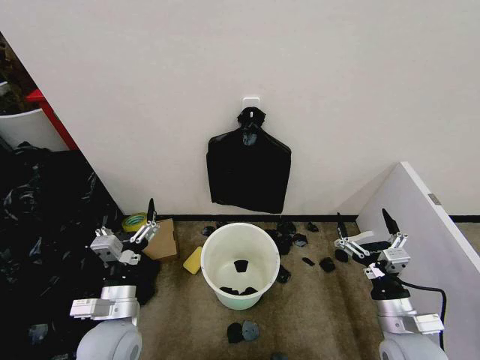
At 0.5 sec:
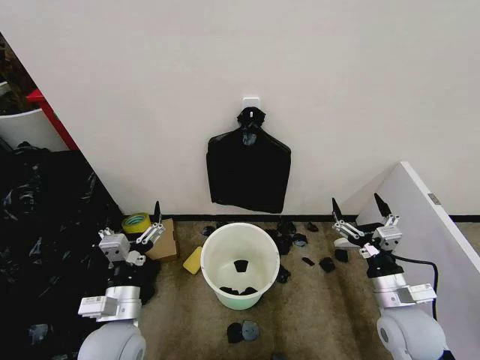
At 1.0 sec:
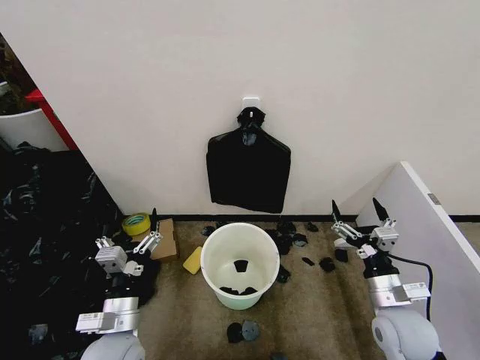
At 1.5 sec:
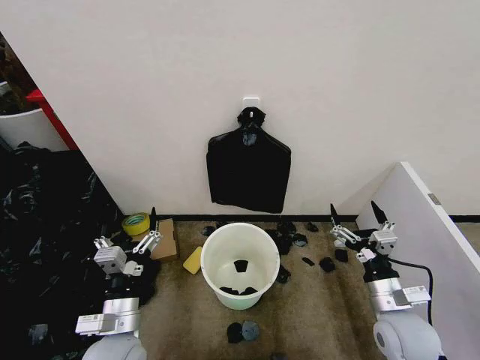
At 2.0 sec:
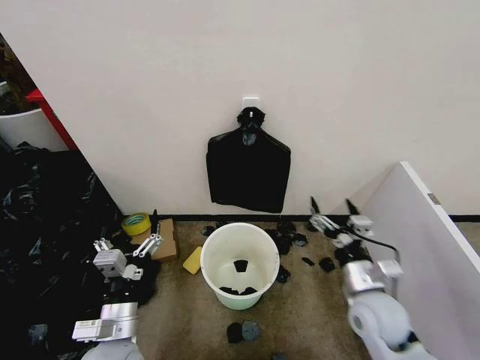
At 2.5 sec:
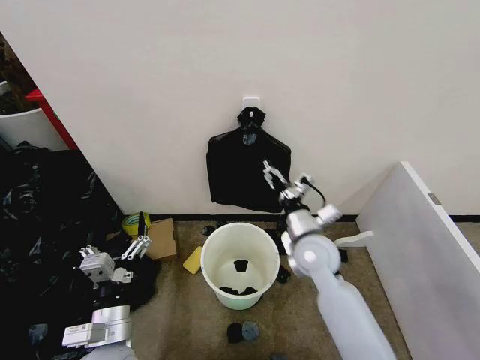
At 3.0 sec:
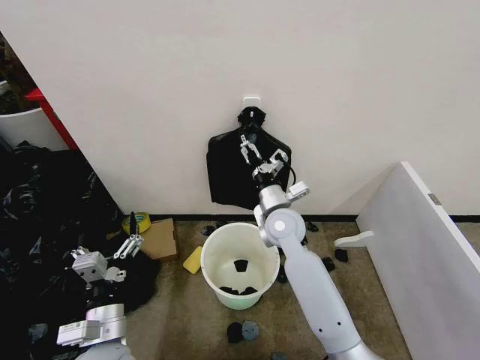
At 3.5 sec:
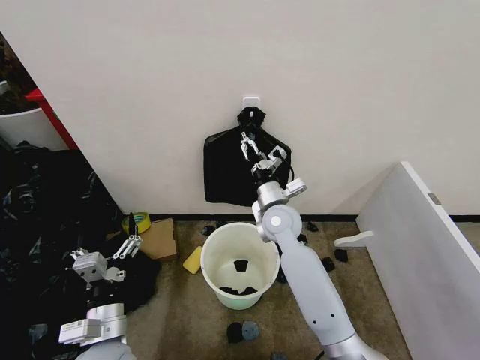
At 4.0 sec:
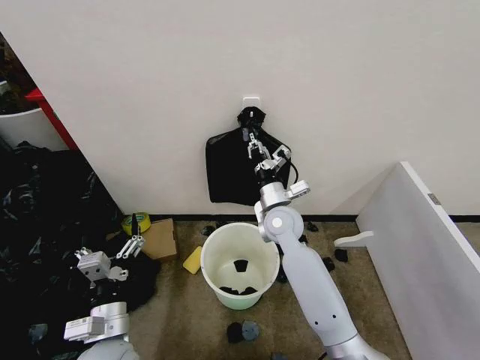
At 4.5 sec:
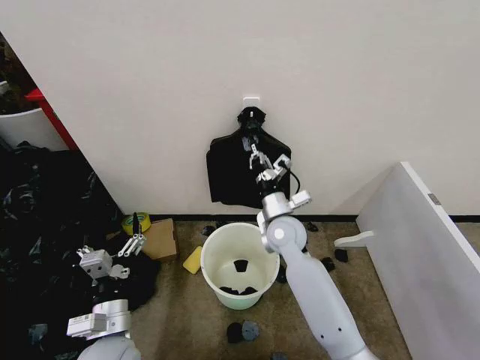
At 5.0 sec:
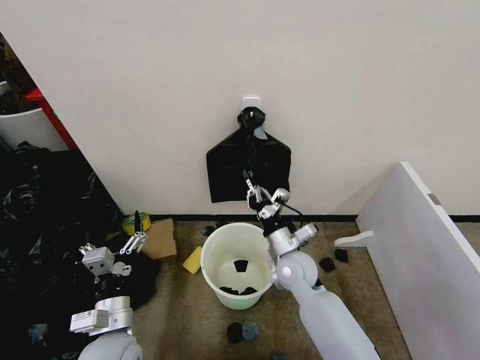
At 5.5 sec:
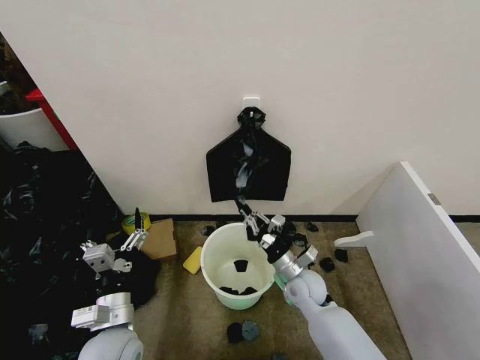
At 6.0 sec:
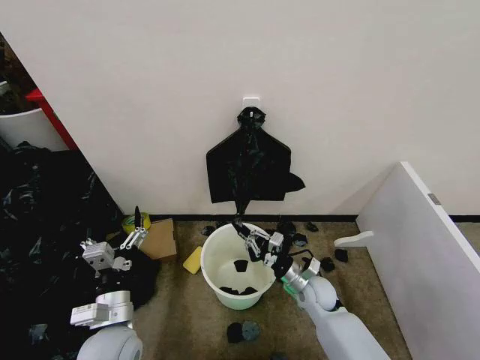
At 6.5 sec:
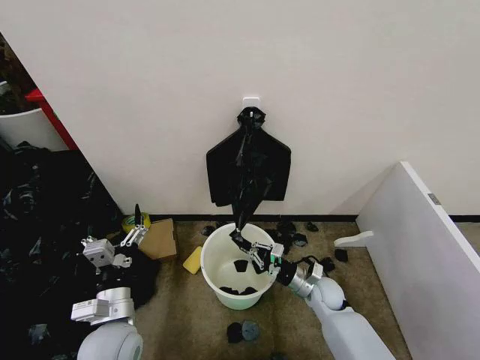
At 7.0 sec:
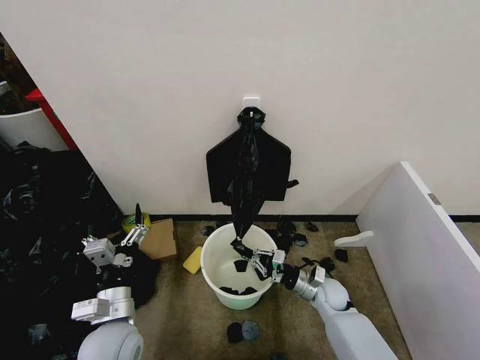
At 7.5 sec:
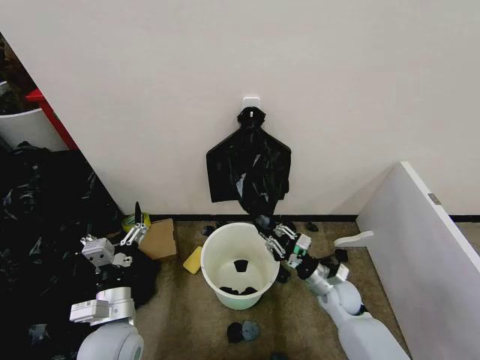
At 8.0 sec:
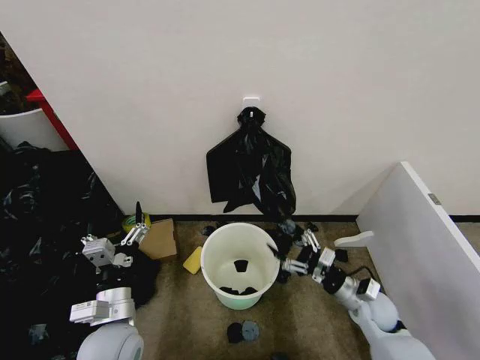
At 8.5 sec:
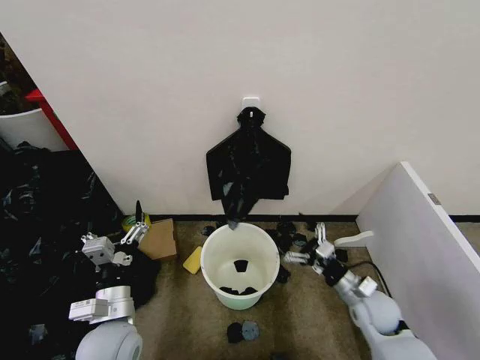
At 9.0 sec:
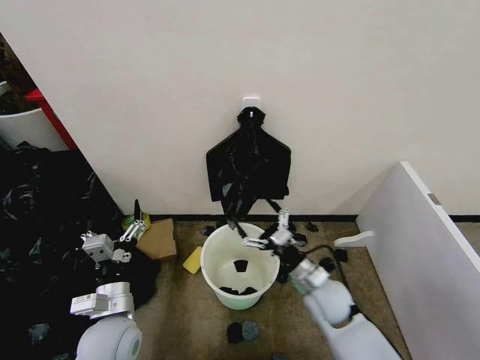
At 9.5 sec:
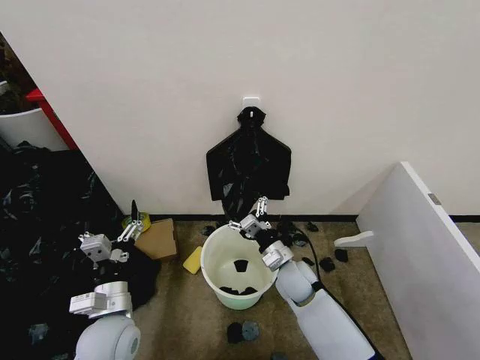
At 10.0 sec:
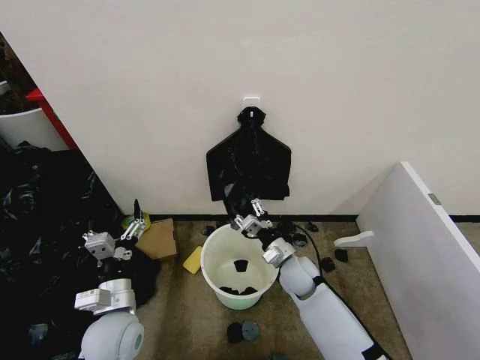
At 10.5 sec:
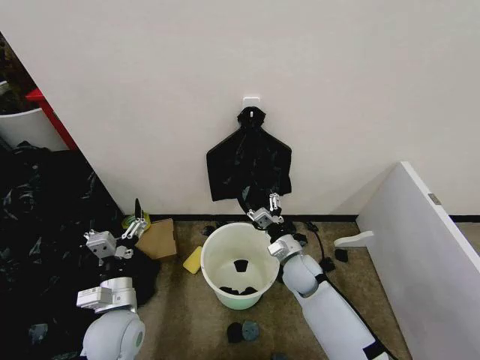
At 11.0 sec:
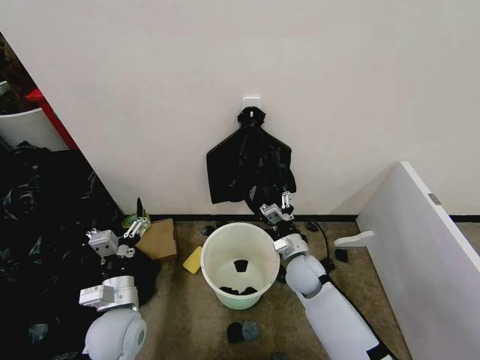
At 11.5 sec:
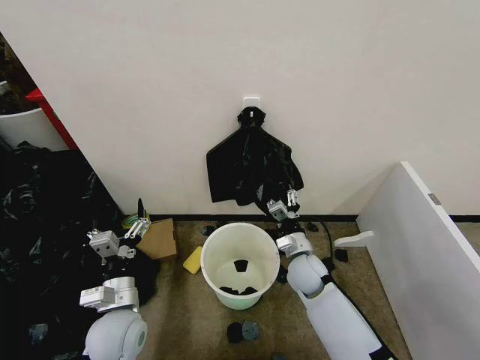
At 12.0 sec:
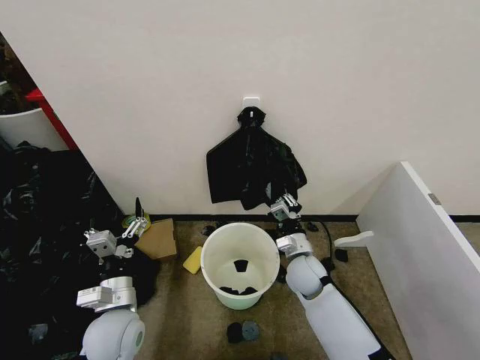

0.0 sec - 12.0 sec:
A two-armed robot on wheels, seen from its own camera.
Task of the whole recording: Place the garbage bag over the trash bin.
2.0 sec - 4.0 sec: The right gripper goes approximately 25 cm forward and to the left, and closes.
4.0 sec - 6.0 sec: The right gripper travels downward, backward and to the right by roughly 20 cm.
6.0 sec - 8.0 sec: The right gripper is displaced to the right by about 10 cm, and opens its fingers.
8.0 sec - 10.0 sec: The right gripper heads to the left and forward, covering some 20 cm.
10.0 sec - 12.0 sec: The right gripper closes up.

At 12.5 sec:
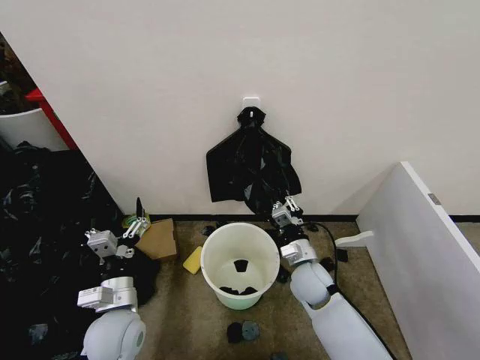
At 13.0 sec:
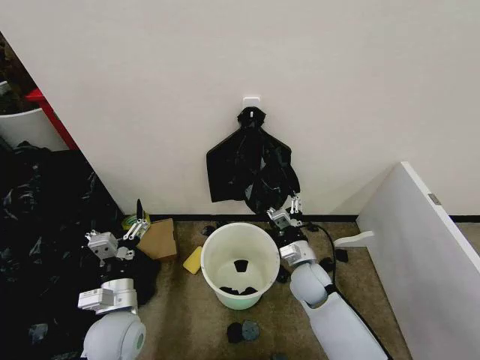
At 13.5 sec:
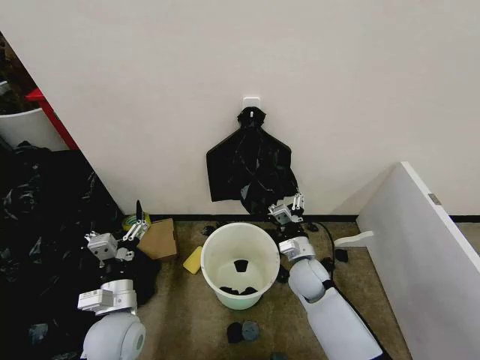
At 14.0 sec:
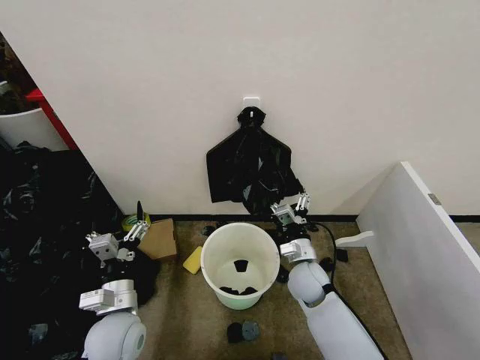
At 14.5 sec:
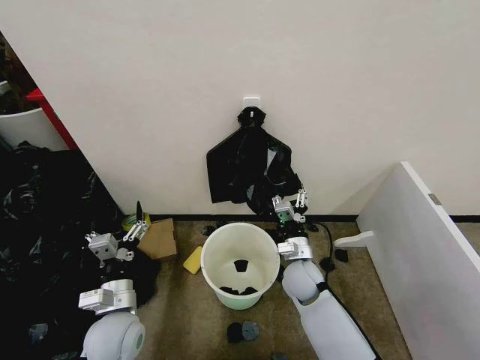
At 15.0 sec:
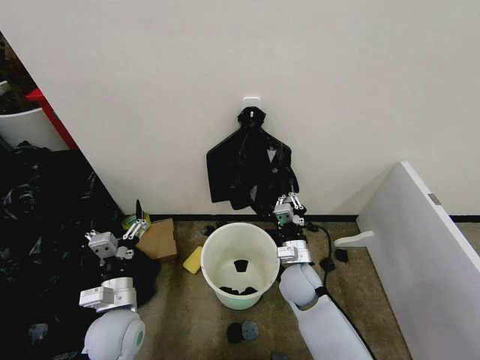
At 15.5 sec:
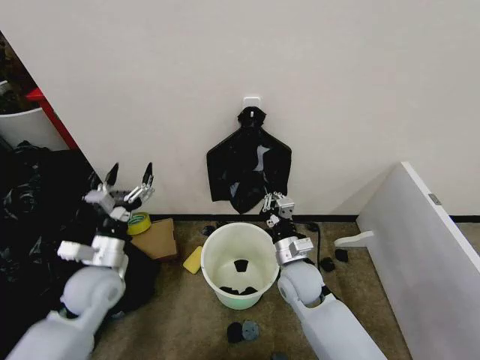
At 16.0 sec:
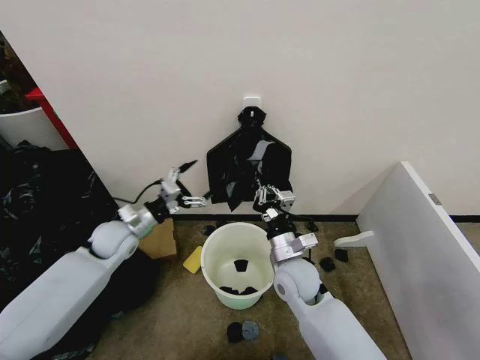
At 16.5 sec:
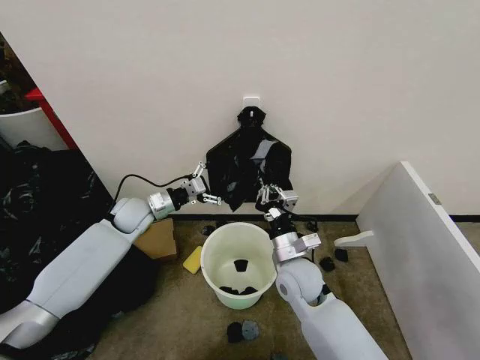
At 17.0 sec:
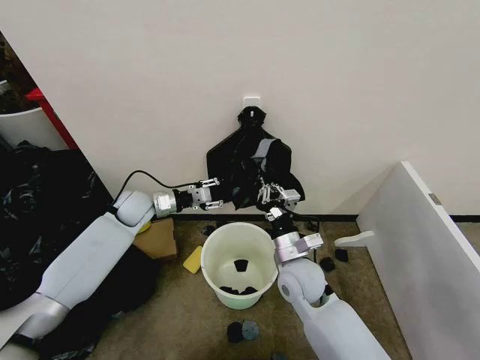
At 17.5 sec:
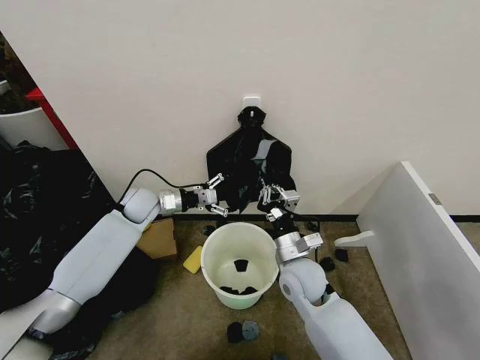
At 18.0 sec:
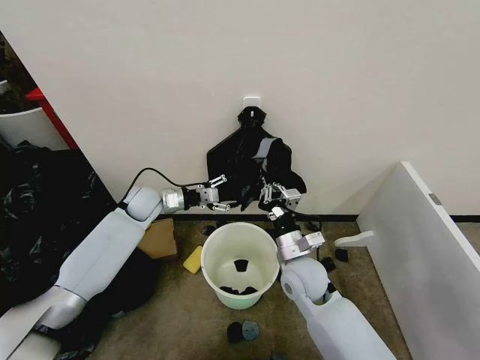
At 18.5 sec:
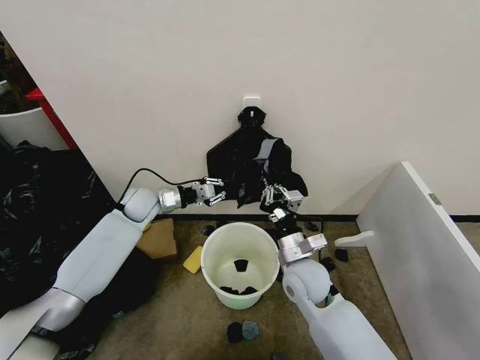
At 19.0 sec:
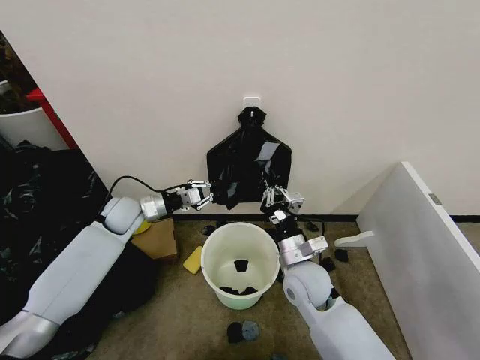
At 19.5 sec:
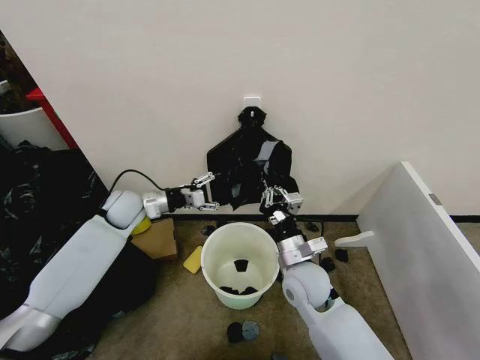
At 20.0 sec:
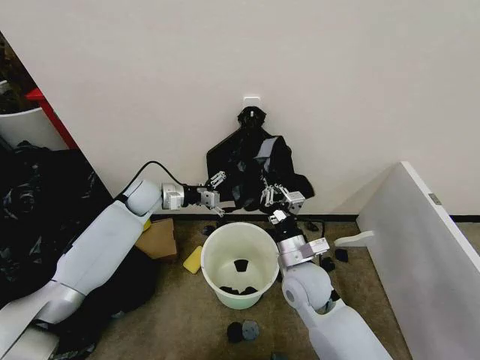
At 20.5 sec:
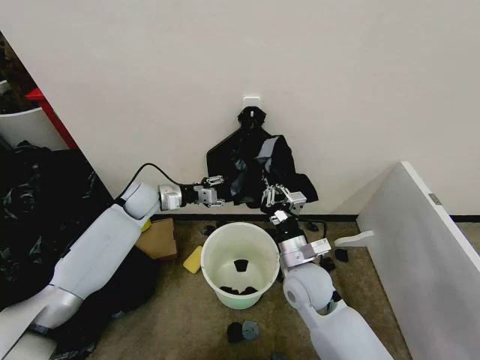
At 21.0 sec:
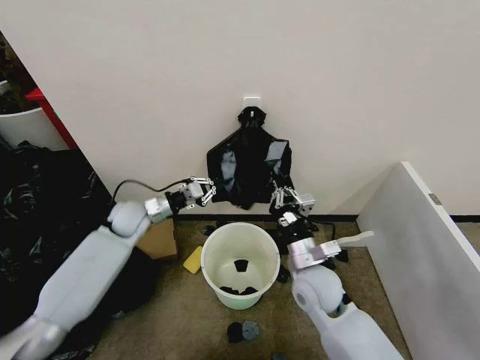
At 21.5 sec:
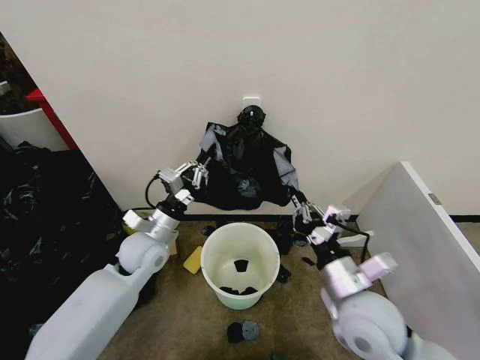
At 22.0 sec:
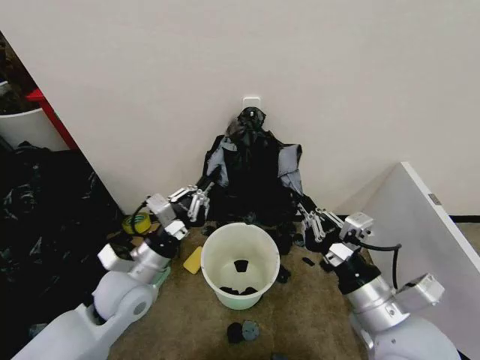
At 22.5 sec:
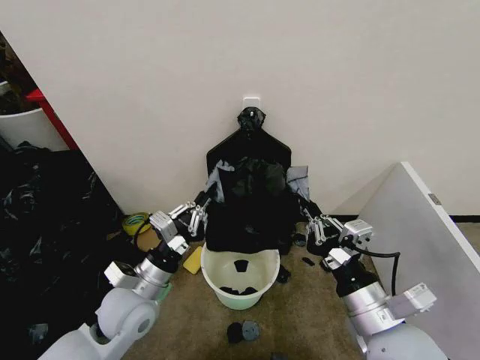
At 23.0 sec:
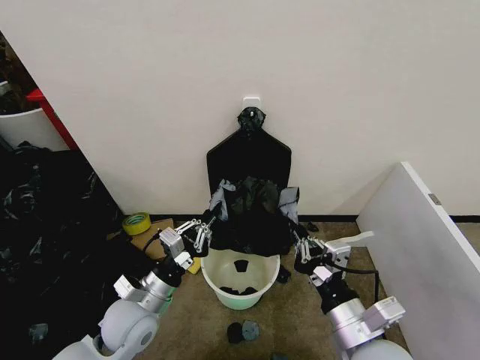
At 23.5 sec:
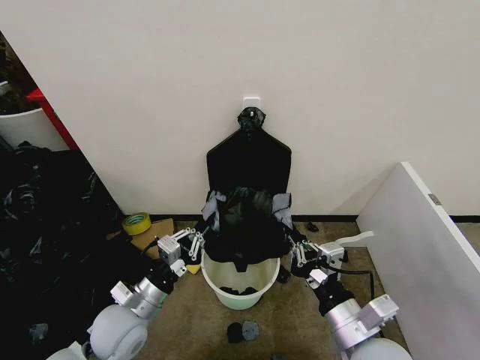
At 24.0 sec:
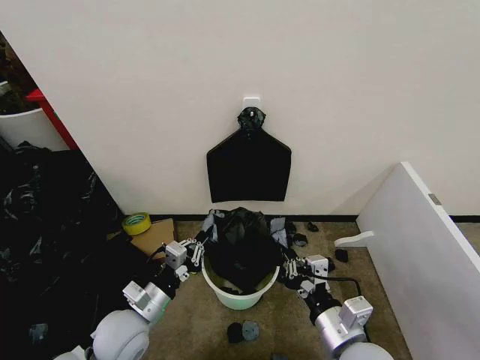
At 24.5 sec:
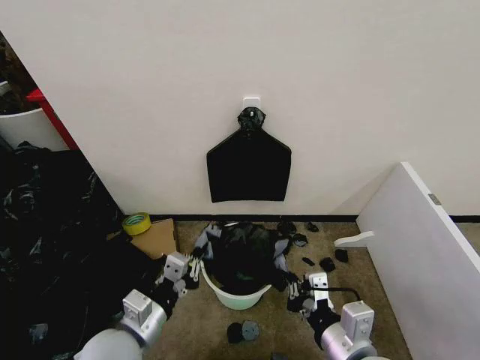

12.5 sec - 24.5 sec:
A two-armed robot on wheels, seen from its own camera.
Task of the whole recording: Place the garbage bag over the trash bin.
12.5 sec - 14.5 sec: The right gripper opens its fingers.
14.5 sec - 16.5 sec: The left gripper shifts about 25 cm forward. The right gripper shifts some 5 cm upward, and closes its fingers.
16.5 sec - 18.5 sec: The left gripper closes up.
18.5 sec - 20.5 sec: The left gripper opens, then closes once more.
20.5 sec - 22.5 sec: The right gripper is displaced backward, upward and to the right by approximately 20 cm. The left gripper heads backward, covering some 25 cm, and closes its fingers.
22.5 sec - 24.5 sec: The right gripper moves approximately 5 cm; the left gripper goes roughly 10 cm backward.

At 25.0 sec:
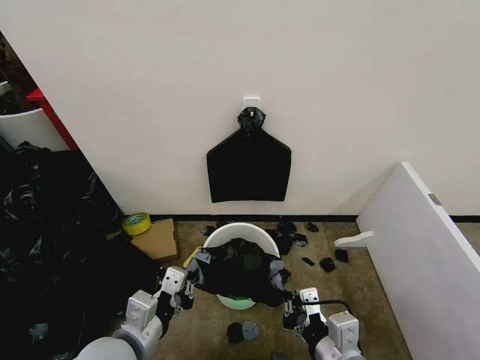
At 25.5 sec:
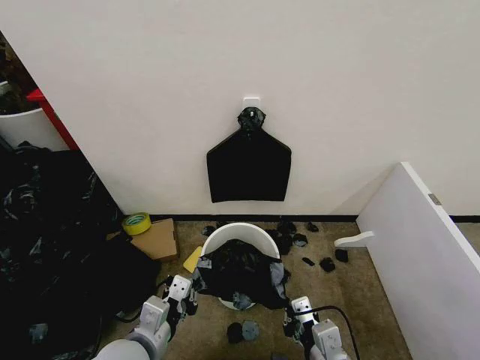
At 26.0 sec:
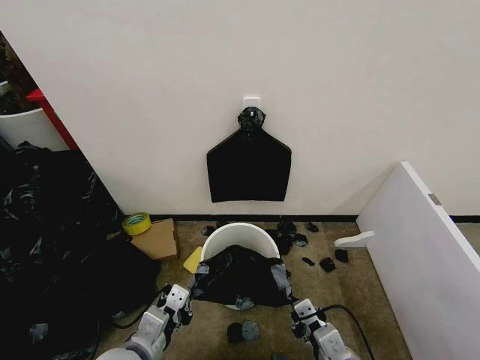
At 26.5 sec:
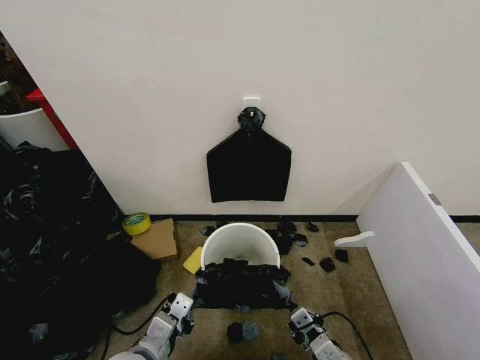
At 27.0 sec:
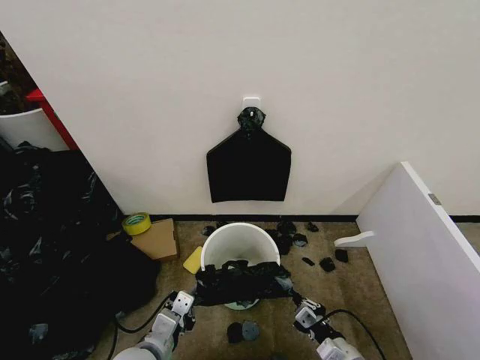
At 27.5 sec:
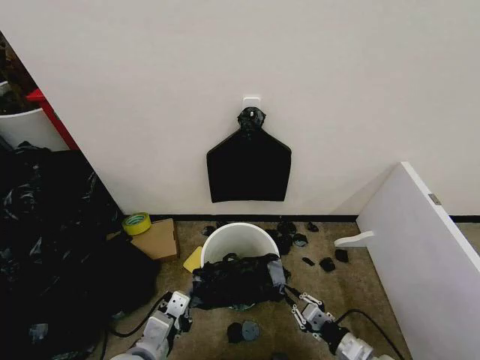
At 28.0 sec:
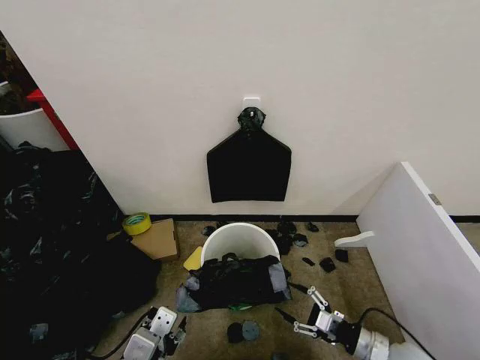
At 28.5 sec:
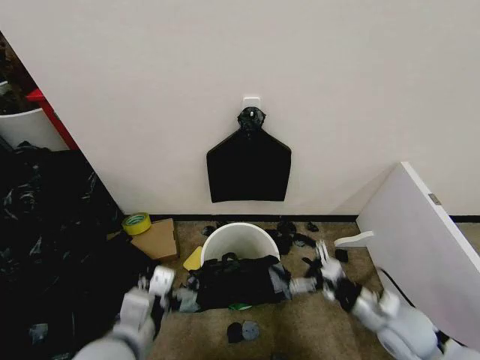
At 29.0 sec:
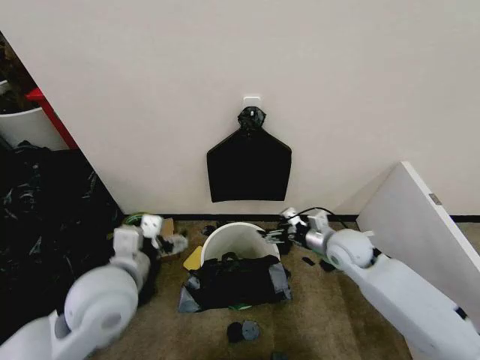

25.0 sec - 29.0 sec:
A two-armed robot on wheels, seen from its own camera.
Task of the whole recording: Place the garbage bag over the trash bin.
25.0 sec - 27.0 sec: The right gripper travels downward and to the right by roughly 15 cm, while the left gripper moves downward, some 10 cm.
27.0 sec - 29.0 sec: The right gripper shifts roughly 30 cm forward and upward, and opens, while the left gripper goes about 20 cm upward and forward, and opens.
